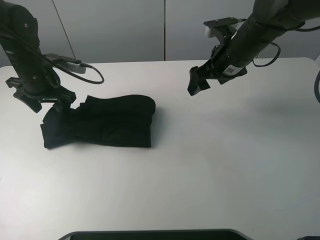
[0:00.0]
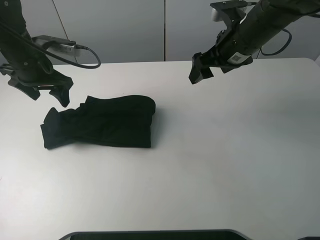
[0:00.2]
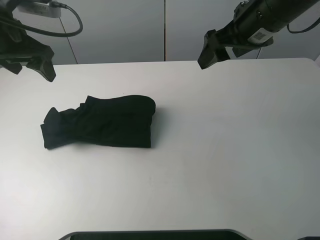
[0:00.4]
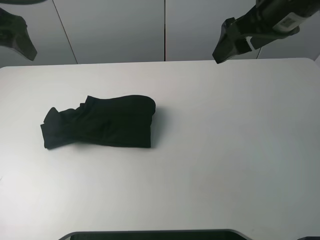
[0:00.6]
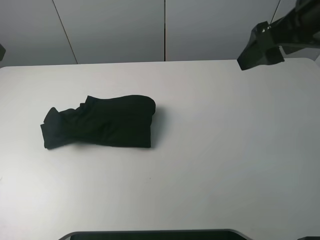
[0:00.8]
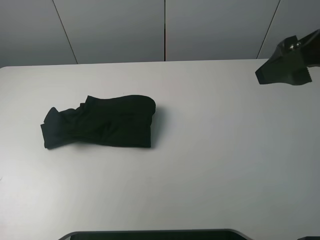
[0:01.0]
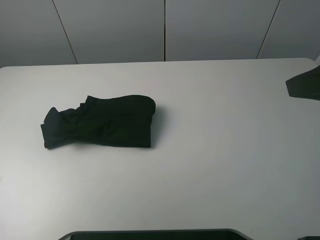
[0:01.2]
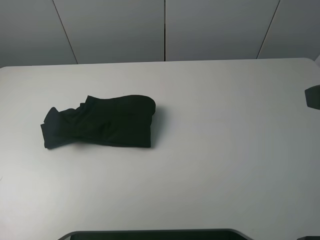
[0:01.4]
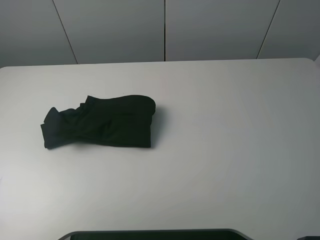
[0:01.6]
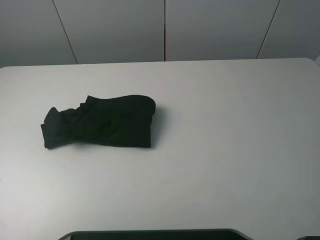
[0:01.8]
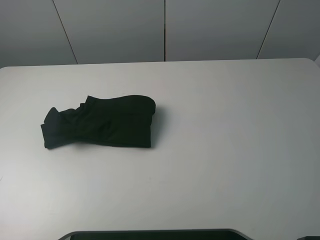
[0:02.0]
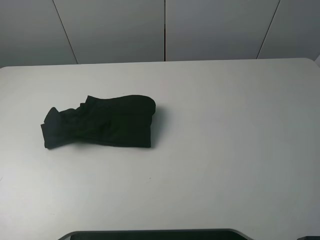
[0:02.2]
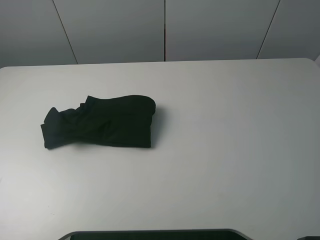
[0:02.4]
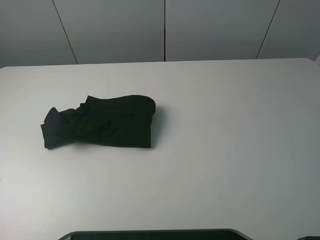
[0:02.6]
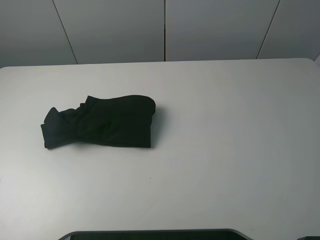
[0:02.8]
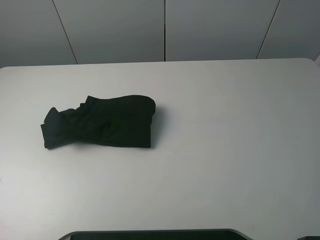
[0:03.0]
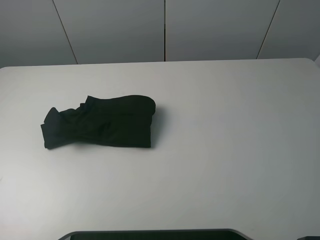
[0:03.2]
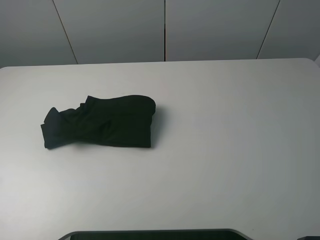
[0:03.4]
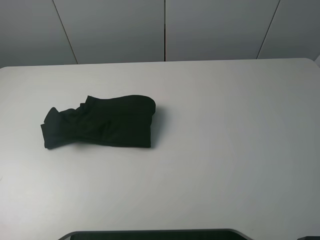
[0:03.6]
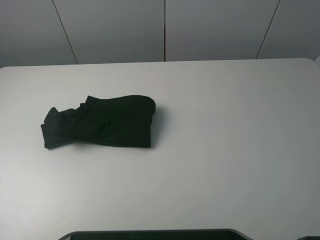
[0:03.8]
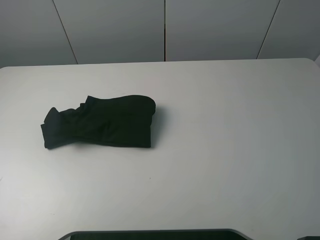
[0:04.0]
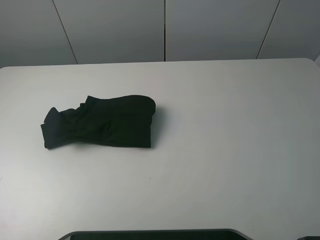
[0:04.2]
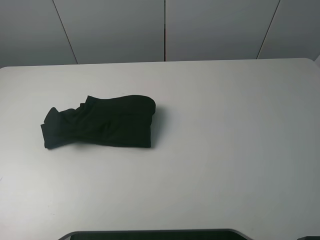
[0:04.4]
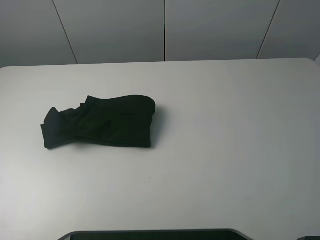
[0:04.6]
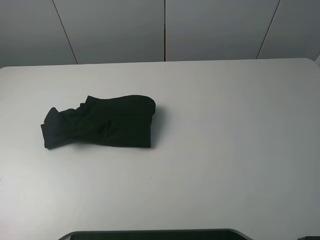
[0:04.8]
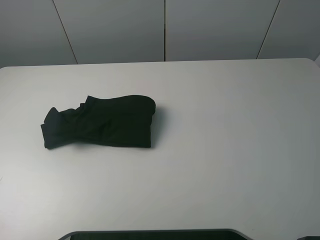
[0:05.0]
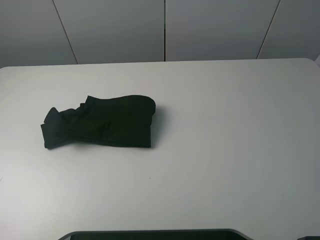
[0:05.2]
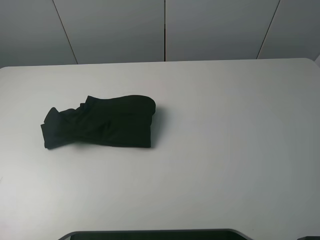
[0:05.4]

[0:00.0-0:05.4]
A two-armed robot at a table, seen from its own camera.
Task of the whole recording: fold the clothes on the table.
0:00.0 to 0:01.4: The left gripper shifts approximately 30 cm backward and upward; the right gripper moves backward, upward and to the right, approximately 30 cm.
0:04.0 to 0:05.4: The two grippers keep their place.
